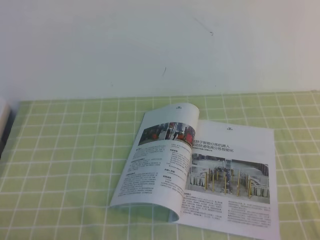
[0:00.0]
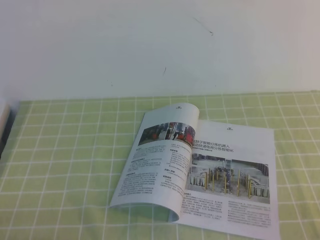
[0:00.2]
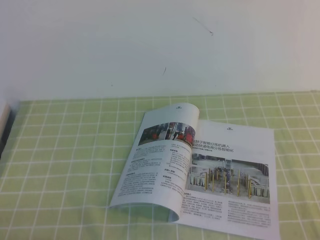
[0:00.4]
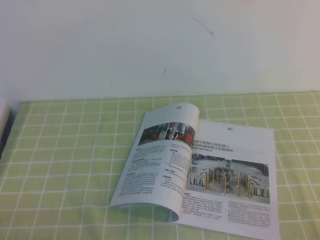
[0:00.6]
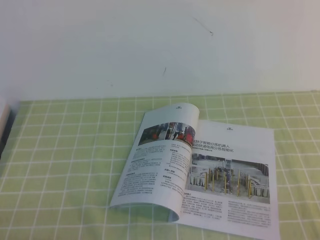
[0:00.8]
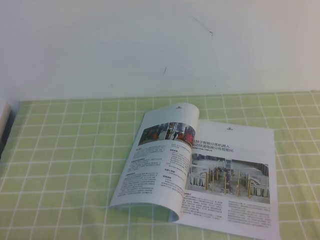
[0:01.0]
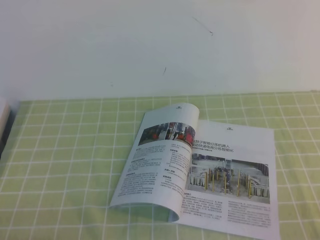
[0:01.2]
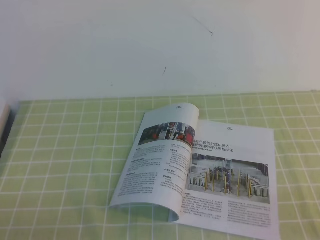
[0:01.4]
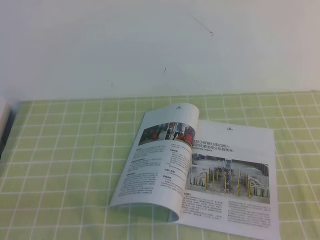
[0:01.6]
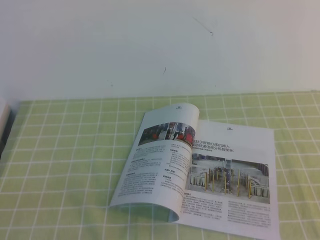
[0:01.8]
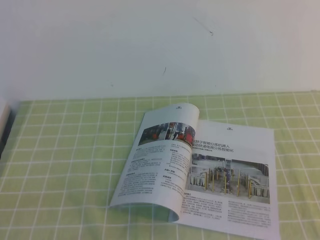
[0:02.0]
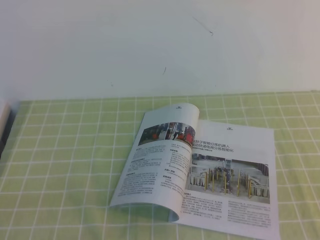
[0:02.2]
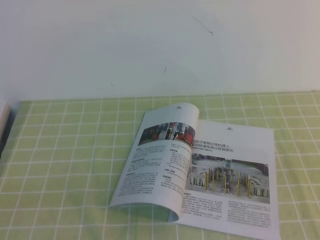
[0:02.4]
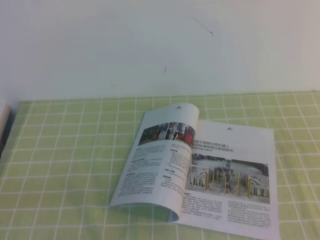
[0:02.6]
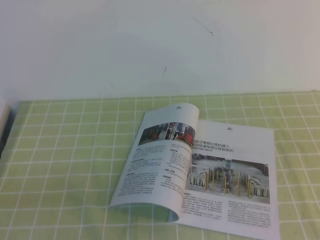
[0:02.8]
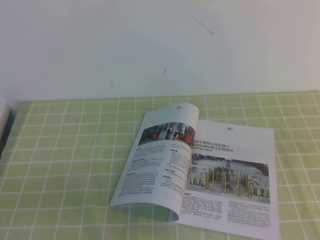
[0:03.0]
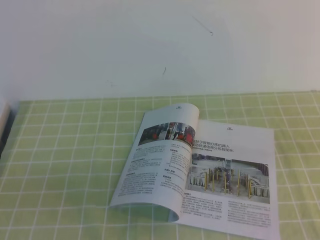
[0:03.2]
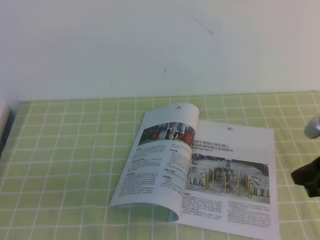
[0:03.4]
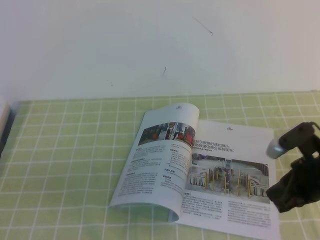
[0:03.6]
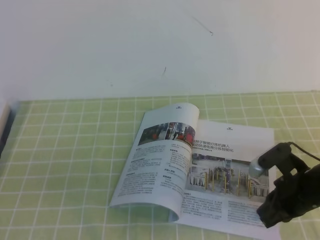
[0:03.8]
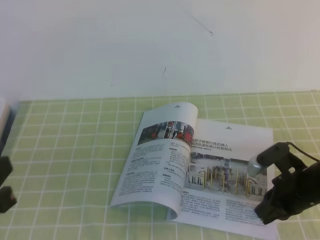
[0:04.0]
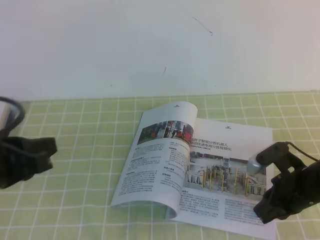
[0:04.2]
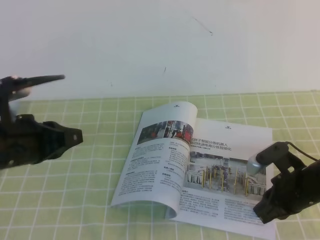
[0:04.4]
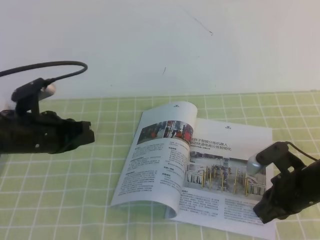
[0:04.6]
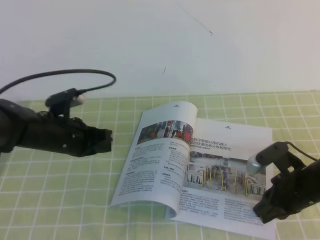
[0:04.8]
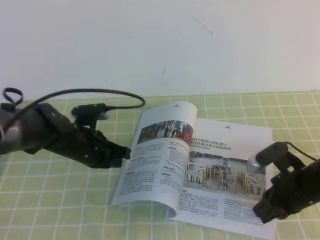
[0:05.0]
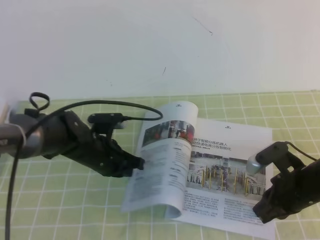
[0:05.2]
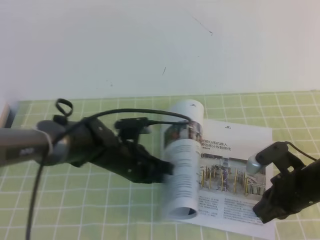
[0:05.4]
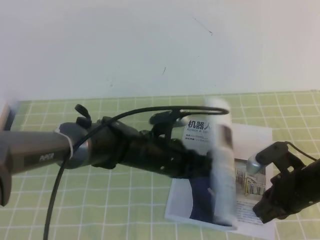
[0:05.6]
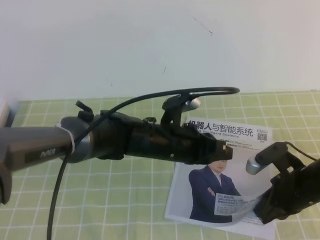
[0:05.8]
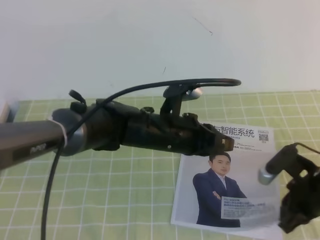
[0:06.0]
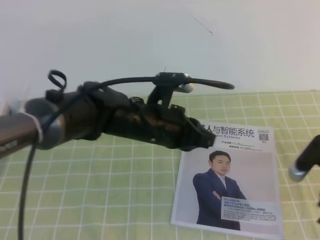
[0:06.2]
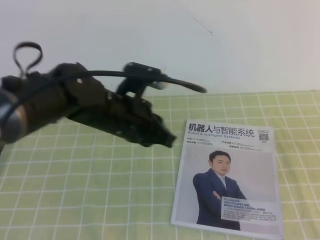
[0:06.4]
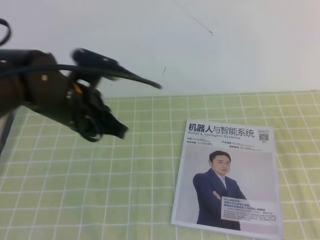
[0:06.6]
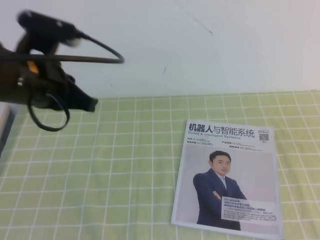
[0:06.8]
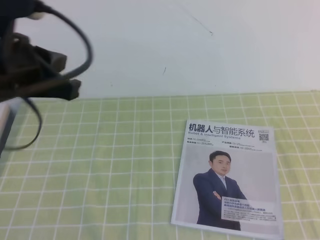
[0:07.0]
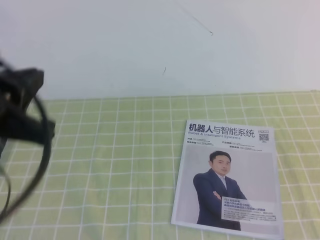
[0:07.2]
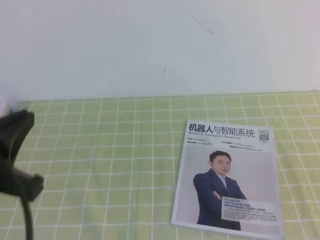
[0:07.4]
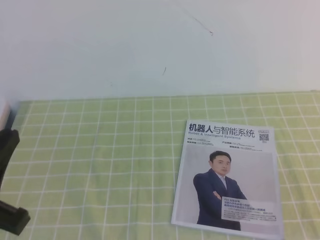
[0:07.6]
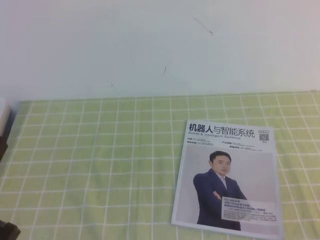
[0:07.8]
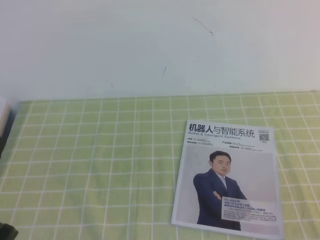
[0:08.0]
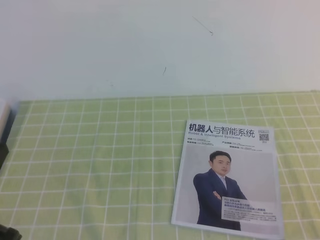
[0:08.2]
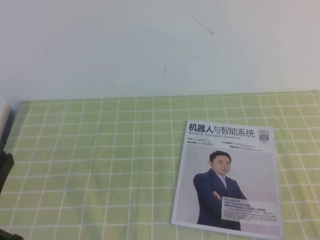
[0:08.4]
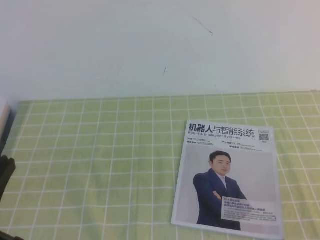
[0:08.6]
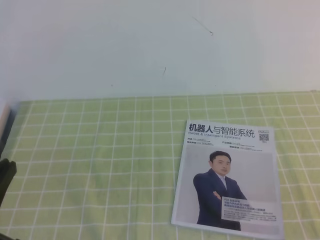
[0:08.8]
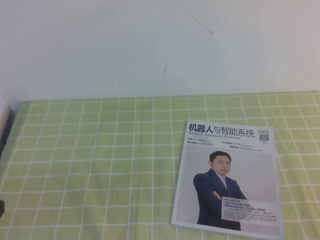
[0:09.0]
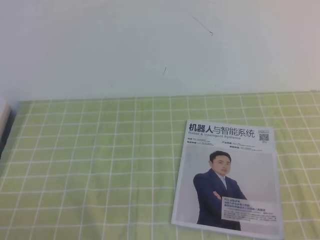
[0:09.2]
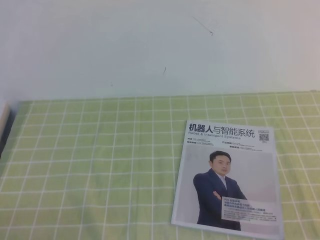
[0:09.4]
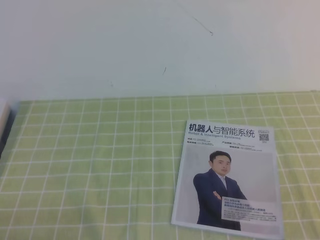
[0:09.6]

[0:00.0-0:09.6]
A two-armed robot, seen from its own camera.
Task of the whole recording: on the green tablecloth, hold the book with one hand and close it with the other.
0:03.2 to 0:04.8: The left gripper moves forward, approximately 30 cm; the right gripper travels downward and to the left by approximately 20 cm.
0:04.8 to 0:06.4: The right gripper moves upward and to the right, about 15 cm; the left gripper heads to the right and upward, covering roughly 15 cm.
0:06.4 to 0:08.0: The left gripper heads backward and to the left, covering approximately 30 cm, while the right gripper shifts some 20 cm backward.

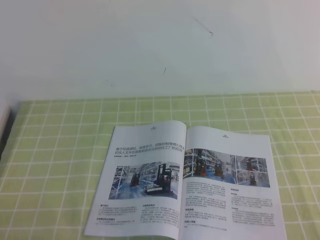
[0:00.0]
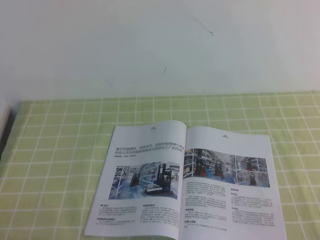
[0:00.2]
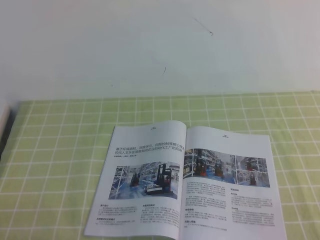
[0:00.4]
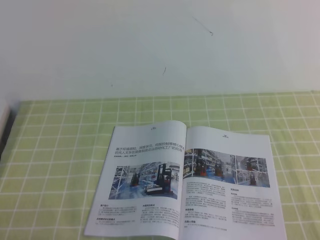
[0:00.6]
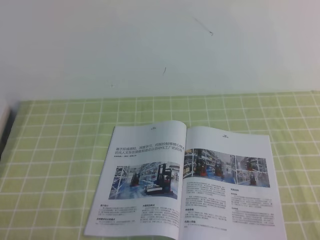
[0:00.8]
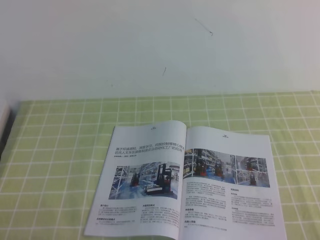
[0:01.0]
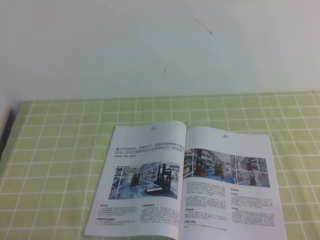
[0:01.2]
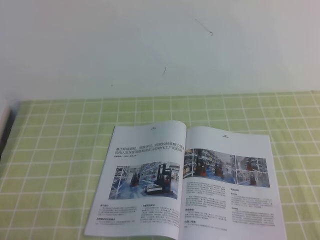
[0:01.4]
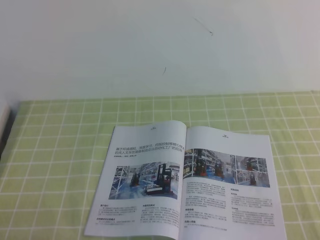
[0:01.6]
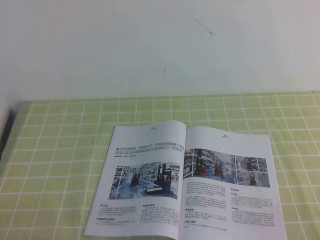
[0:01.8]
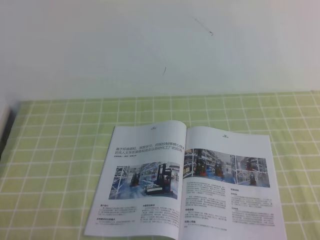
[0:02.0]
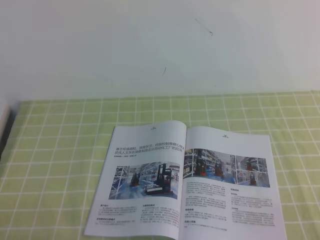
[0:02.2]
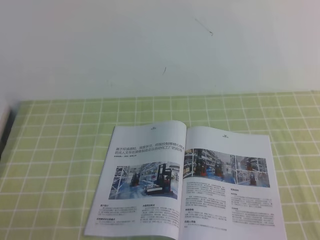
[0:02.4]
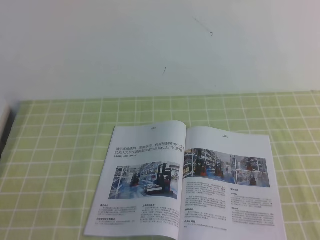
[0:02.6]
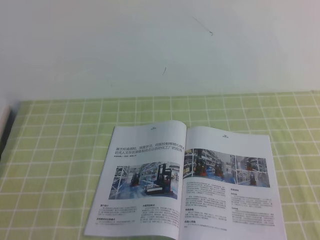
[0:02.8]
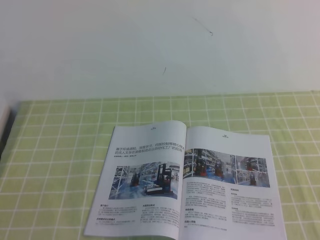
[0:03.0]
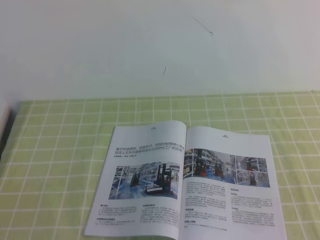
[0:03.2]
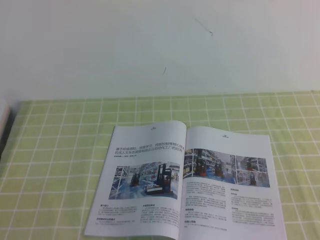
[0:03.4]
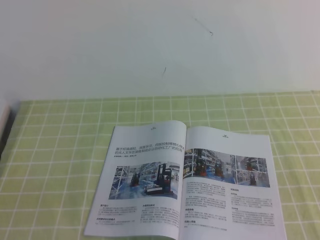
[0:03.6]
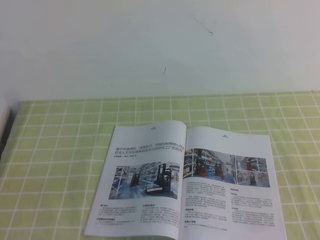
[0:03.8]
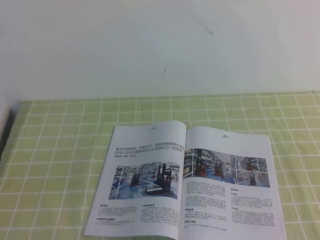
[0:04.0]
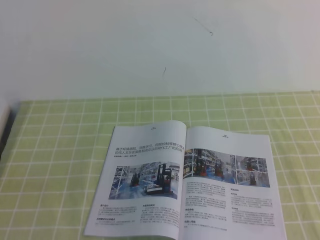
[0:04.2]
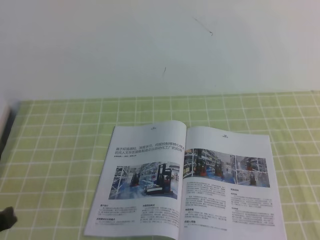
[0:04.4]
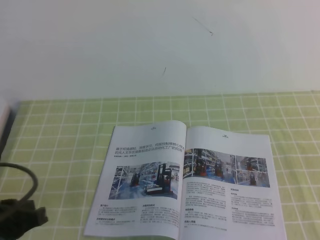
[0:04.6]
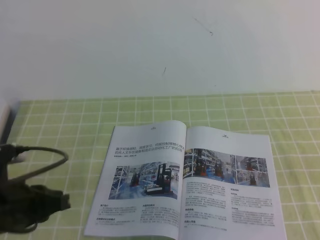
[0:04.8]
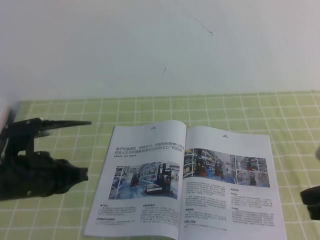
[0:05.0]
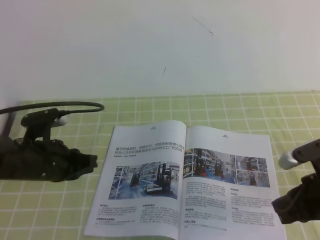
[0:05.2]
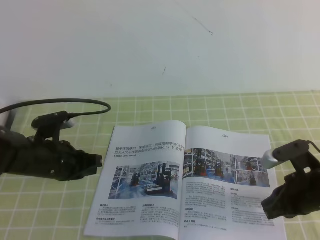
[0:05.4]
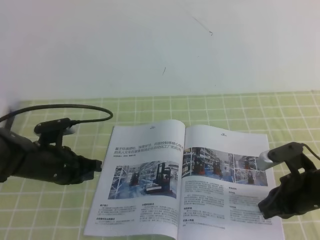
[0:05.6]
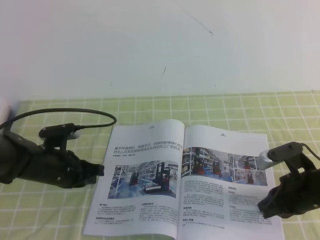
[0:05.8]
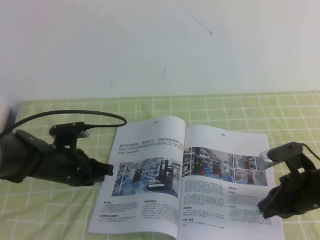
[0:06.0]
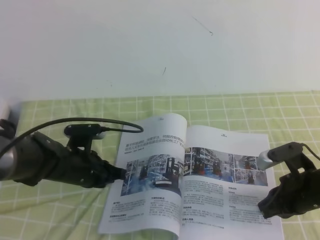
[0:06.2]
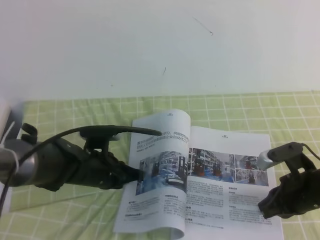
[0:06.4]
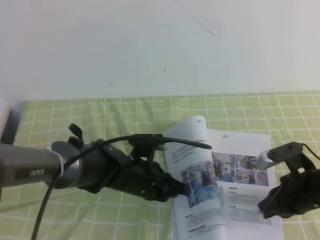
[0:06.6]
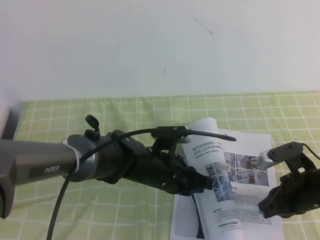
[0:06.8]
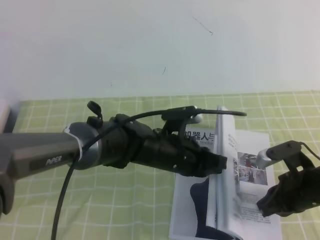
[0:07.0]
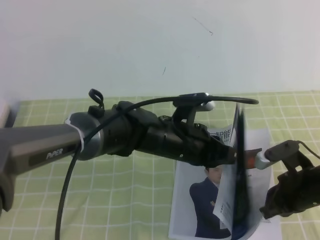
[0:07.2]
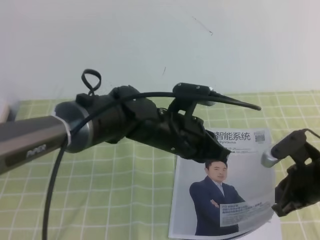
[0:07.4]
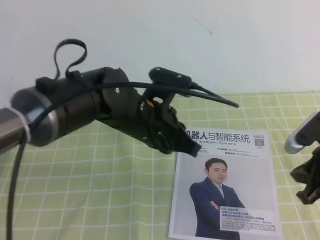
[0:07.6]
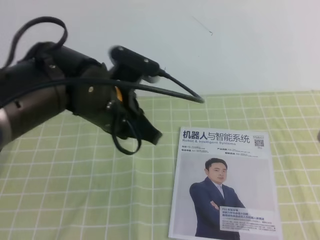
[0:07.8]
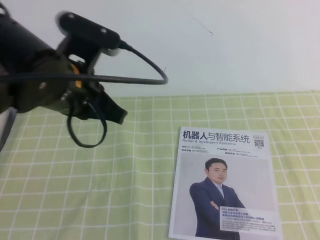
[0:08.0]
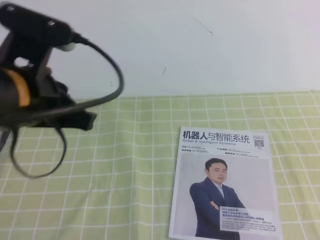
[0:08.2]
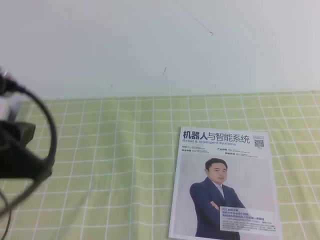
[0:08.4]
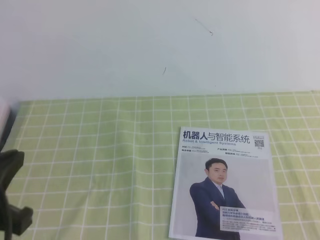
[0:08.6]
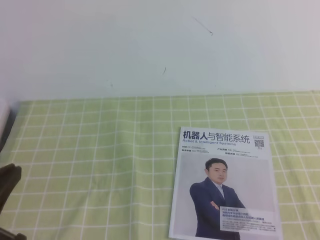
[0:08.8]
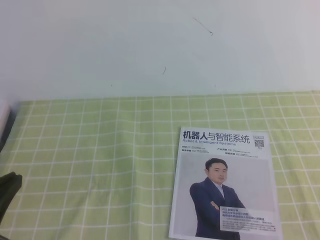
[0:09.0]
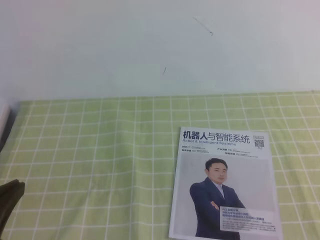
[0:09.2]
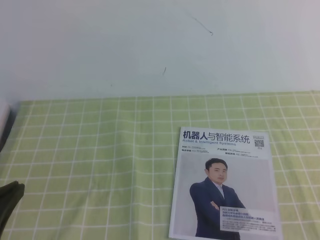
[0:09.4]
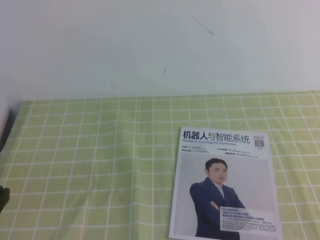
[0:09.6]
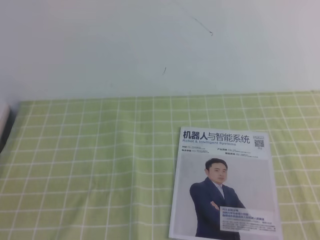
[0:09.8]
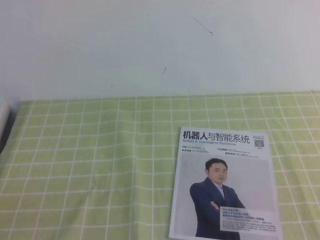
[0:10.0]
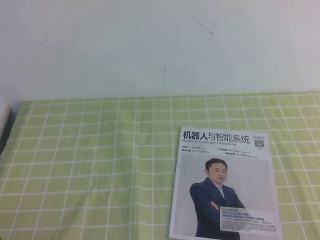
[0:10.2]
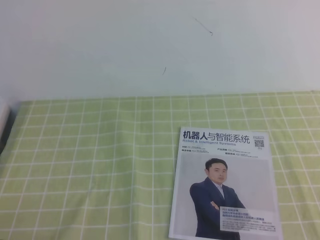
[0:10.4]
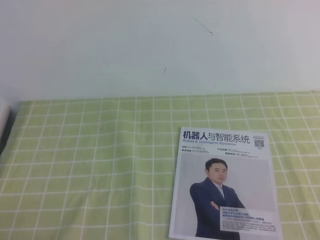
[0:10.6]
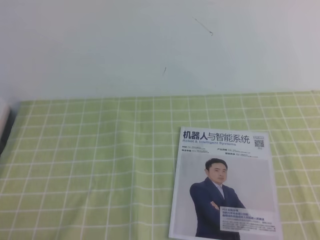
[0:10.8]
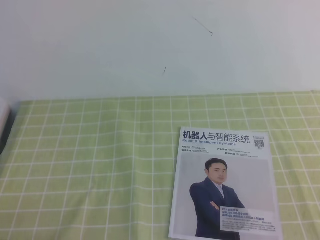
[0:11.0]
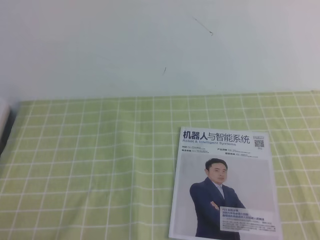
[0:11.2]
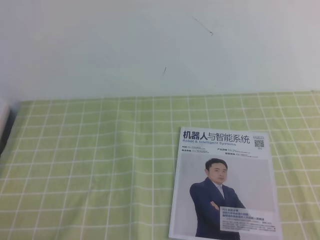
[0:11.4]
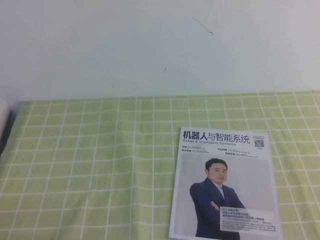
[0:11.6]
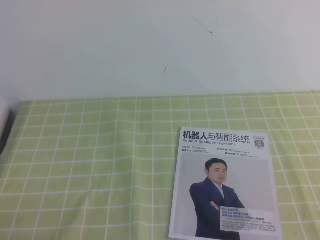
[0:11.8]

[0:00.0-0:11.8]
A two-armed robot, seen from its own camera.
Task of the whole recording: on the green tablecloth, hold the book with one hand and close it with the other.
0:00.0 to 0:01.4: Both grippers stay about where they are.
0:04.4 to 0:06.0: The left gripper shifts roughly 25 cm forward and downward; the right gripper heads downward, forward and to the left, covering approximately 25 cm.
0:06.0 to 0:07.4: The left gripper goes roughly 20 cm to the right and upward.
0:07.4 to 0:08.8: The right gripper shifts approximately 25 cm backward and upward, while the left gripper goes approximately 30 cm to the left and backward.
0:08.8 to 0:10.4: The left gripper travels downward by roughly 15 cm.
